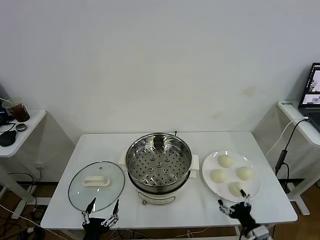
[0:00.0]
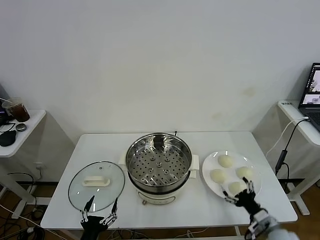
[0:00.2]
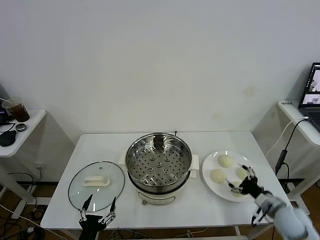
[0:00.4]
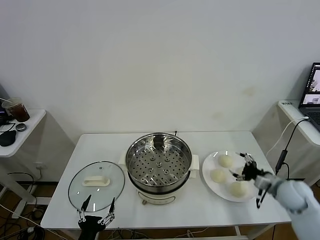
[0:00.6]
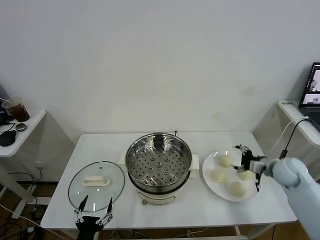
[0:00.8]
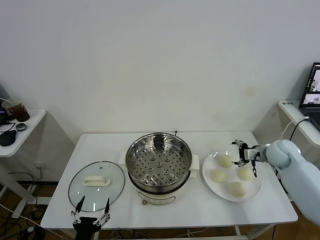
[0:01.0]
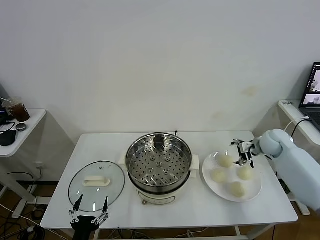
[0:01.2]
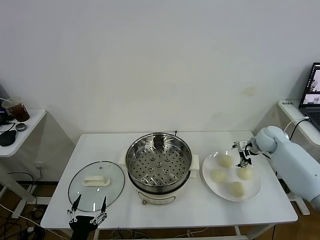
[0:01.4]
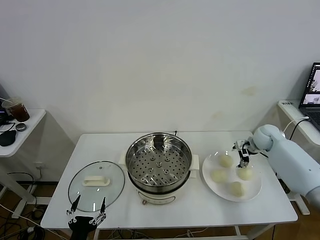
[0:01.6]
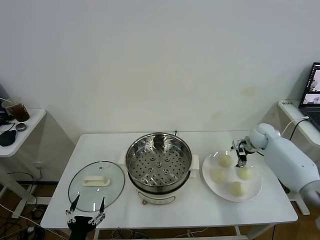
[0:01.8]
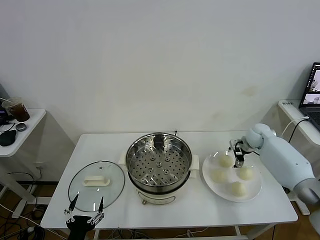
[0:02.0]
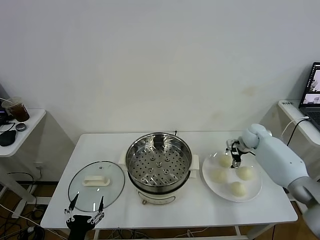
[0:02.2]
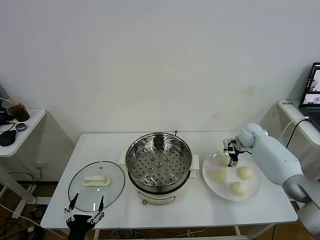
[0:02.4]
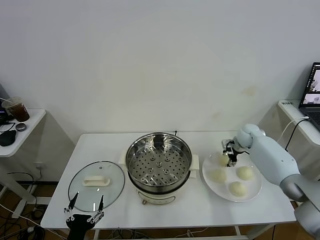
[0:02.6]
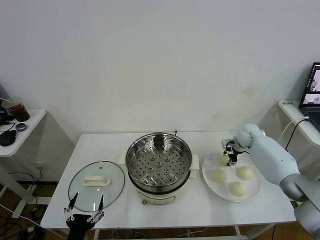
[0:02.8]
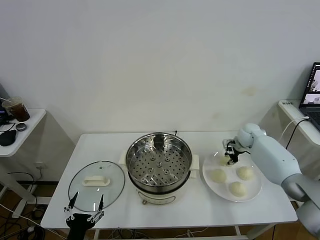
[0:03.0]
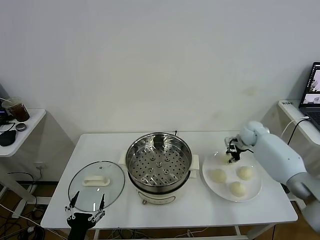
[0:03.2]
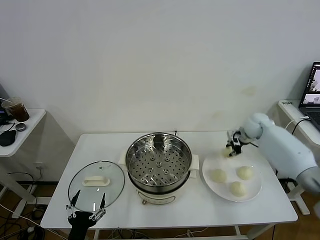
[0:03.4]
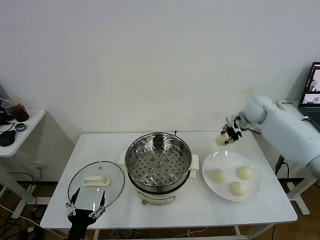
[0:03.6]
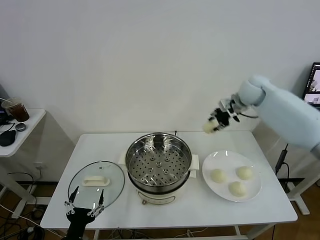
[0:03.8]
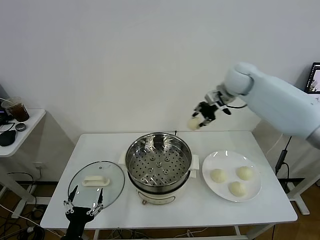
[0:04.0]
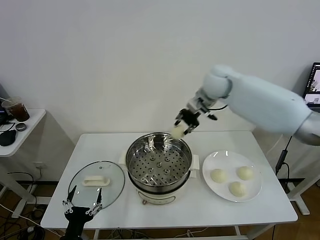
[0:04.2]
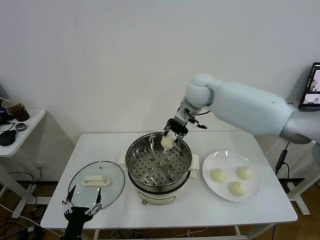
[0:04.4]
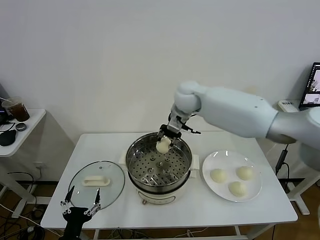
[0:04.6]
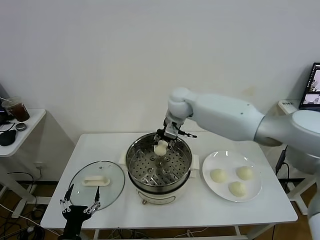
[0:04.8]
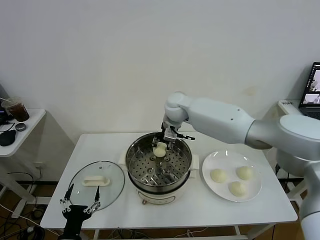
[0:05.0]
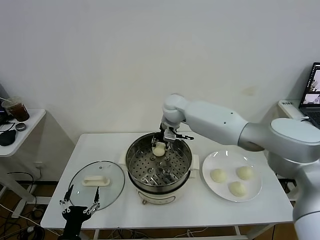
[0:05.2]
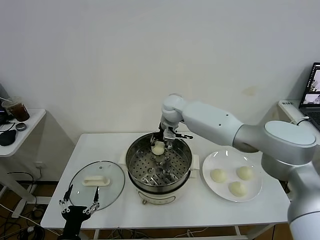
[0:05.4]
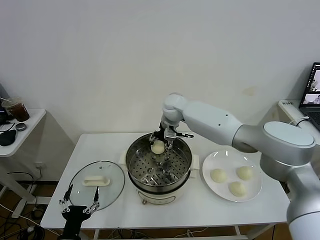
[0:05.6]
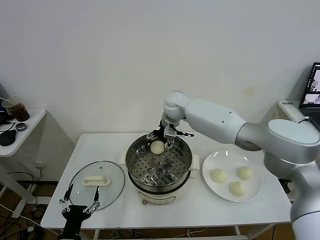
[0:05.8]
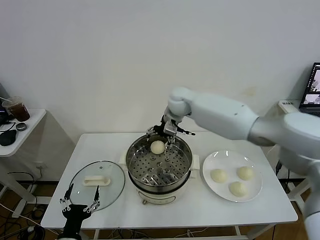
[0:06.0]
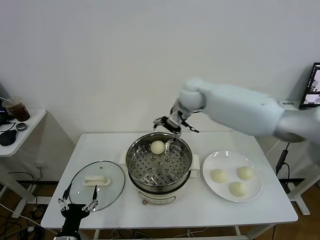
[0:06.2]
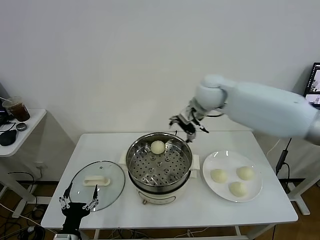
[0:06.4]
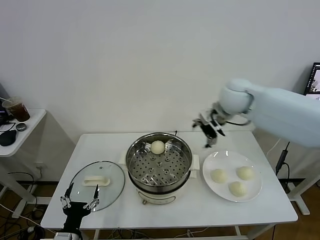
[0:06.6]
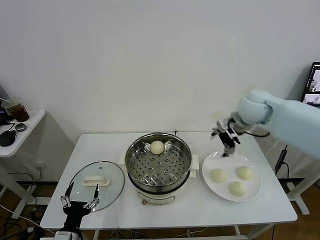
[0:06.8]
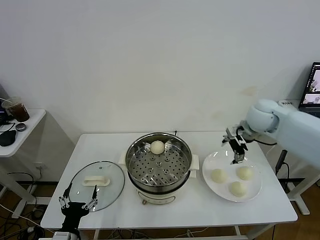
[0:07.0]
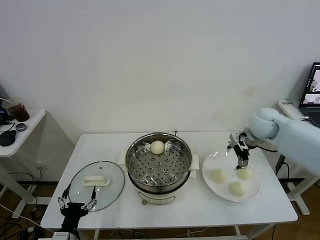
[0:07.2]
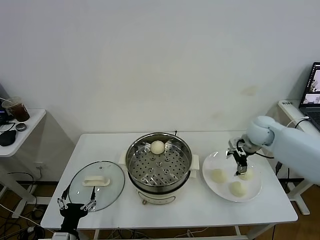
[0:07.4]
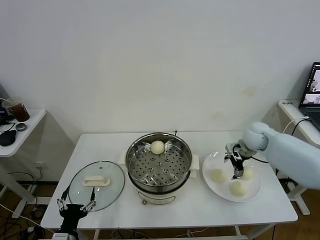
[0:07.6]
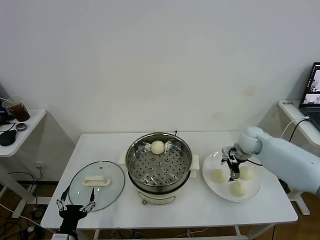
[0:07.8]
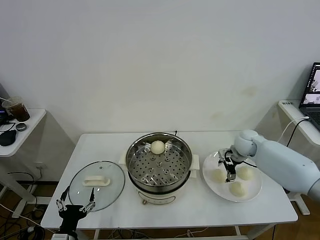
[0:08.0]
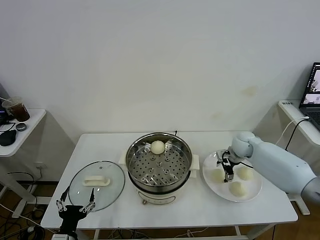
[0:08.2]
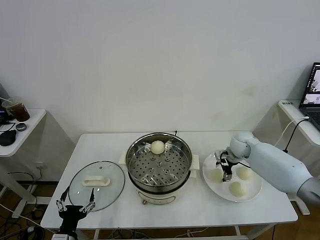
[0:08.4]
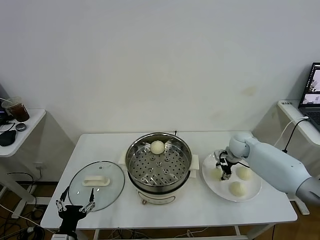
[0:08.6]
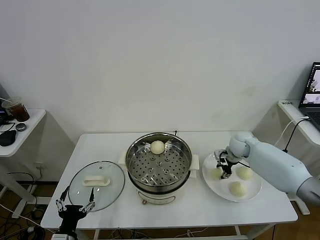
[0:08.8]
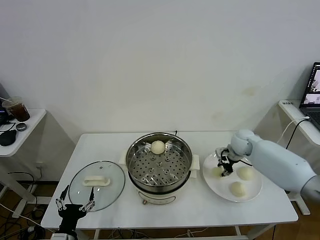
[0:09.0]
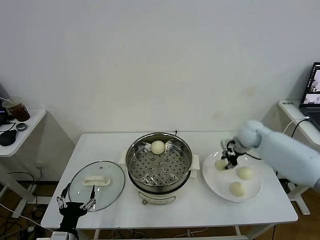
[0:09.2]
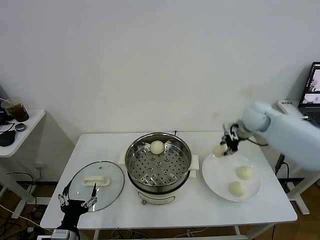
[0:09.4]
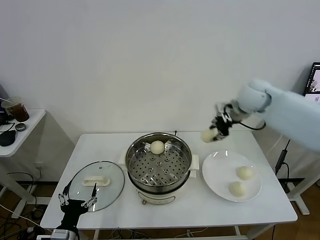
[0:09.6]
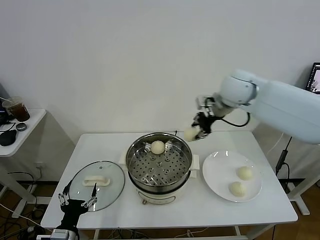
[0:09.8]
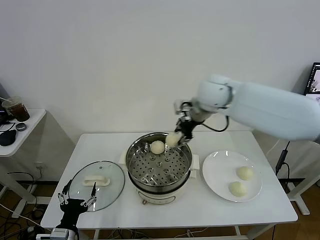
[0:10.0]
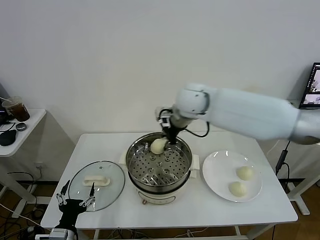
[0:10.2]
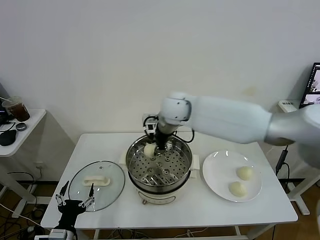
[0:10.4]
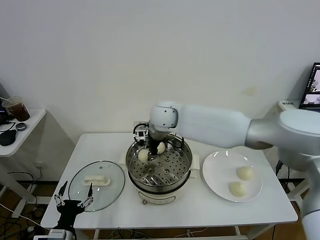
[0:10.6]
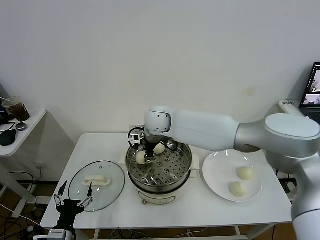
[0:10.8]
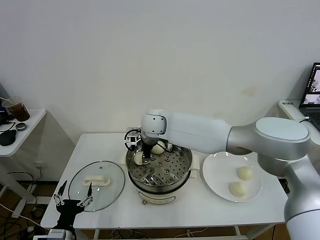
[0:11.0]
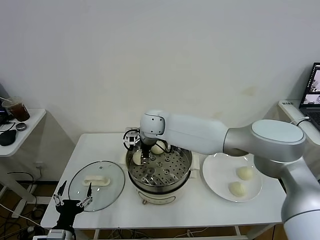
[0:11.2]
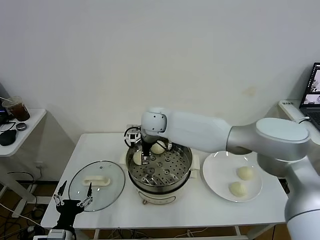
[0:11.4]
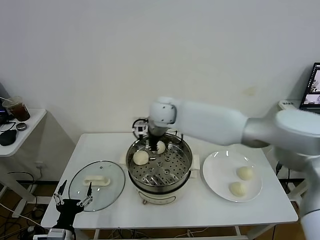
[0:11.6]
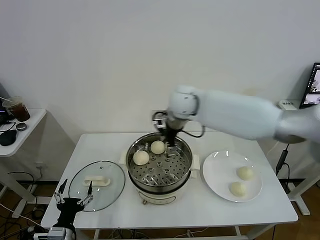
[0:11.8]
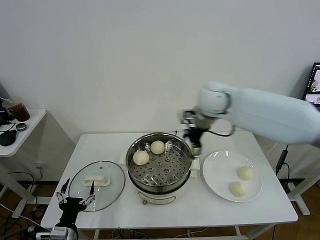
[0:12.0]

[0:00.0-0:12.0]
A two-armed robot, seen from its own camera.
Task of the whole recording: take steamed baozi put them in steamer.
Step, 0.0 to 2.8 s: Grasp the baozi in the plate with right gripper.
Step, 3.0 to 6.0 s: Place the baozi on the steamer with right gripper.
Step, 6.2 to 8.6 s: Grasp the baozi in the plate with right gripper.
Step, 8.8 to 11.4 s: Place the baozi on the steamer with right gripper.
1.6 to 3.0 s: The right gripper shifts by about 5 cm, and closes.
3.0 to 4.4 s: The right gripper heads to the left and upward, covering some 35 cm.
4.4 to 6.0 s: The right gripper opens up.
6.0 to 7.6 s: The right gripper moves to the right and downward, roughly 30 cm.
7.6 to 9.0 s: The right gripper moves some 5 cm, and closes up.
9.0 to 10.4 s: The right gripper is displaced to the left and upward by about 35 cm.
10.4 to 12.0 s: The right gripper travels to the right by approximately 10 cm, and opens its fingers.

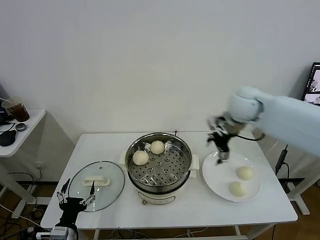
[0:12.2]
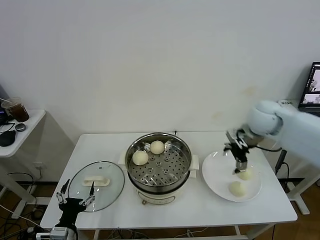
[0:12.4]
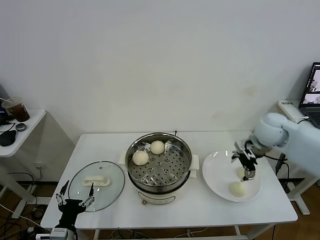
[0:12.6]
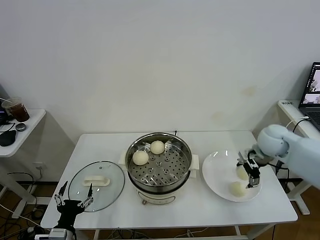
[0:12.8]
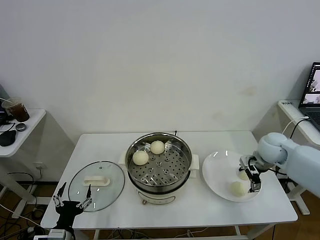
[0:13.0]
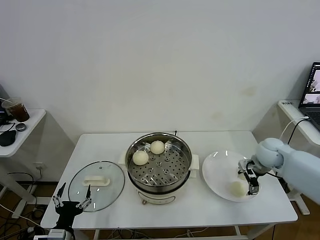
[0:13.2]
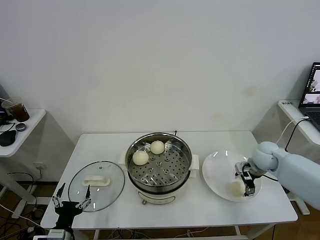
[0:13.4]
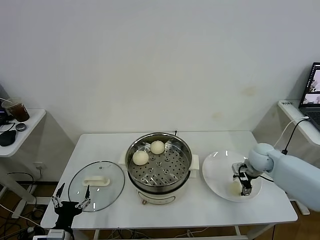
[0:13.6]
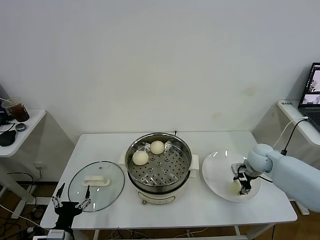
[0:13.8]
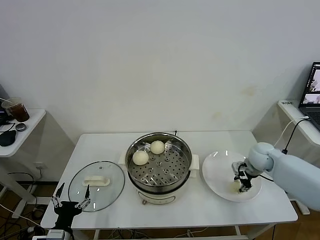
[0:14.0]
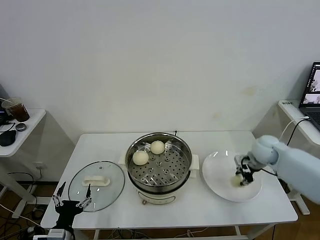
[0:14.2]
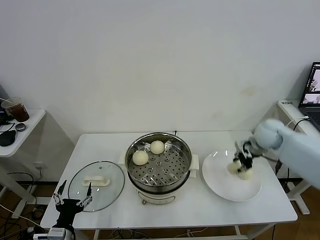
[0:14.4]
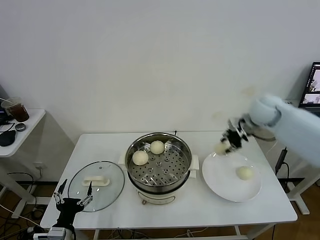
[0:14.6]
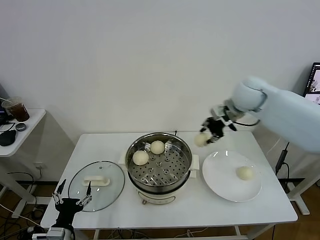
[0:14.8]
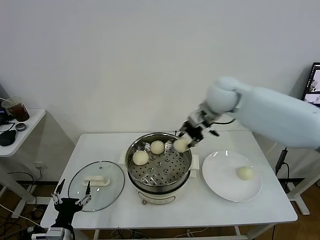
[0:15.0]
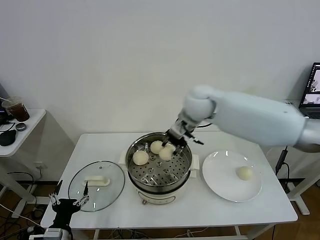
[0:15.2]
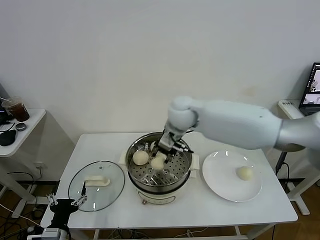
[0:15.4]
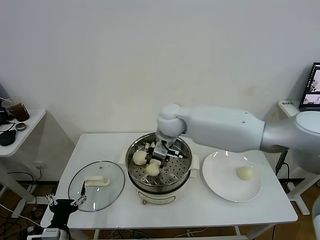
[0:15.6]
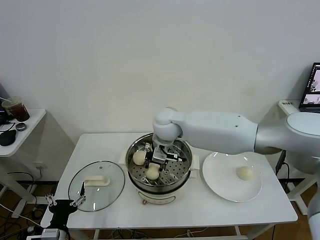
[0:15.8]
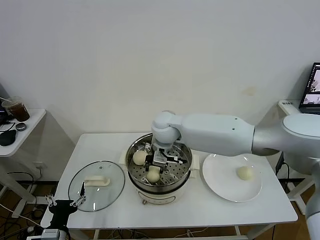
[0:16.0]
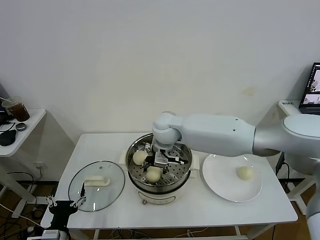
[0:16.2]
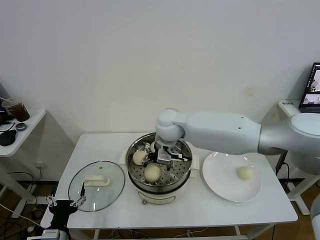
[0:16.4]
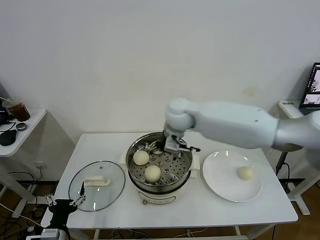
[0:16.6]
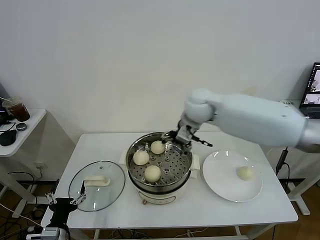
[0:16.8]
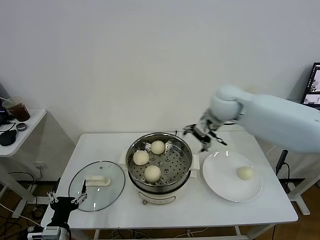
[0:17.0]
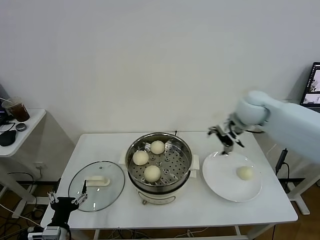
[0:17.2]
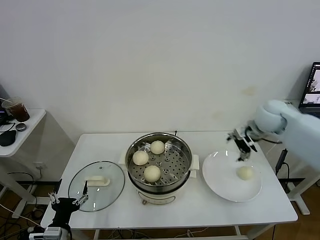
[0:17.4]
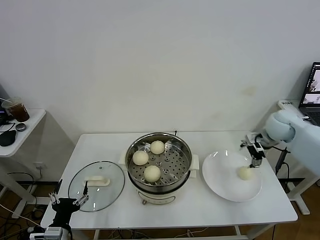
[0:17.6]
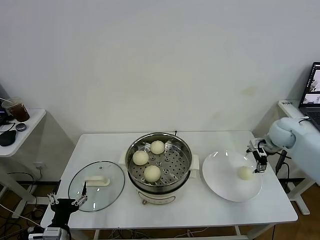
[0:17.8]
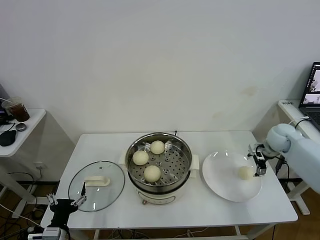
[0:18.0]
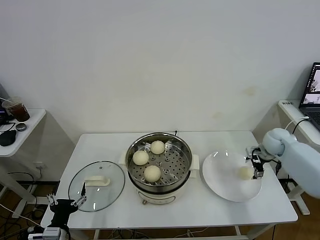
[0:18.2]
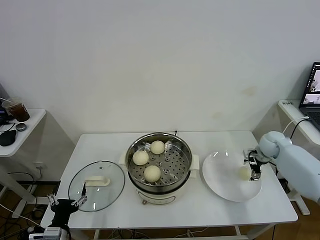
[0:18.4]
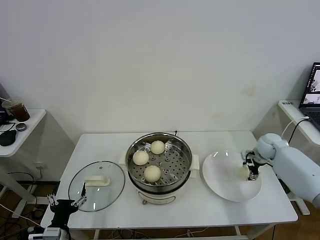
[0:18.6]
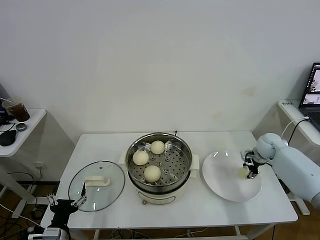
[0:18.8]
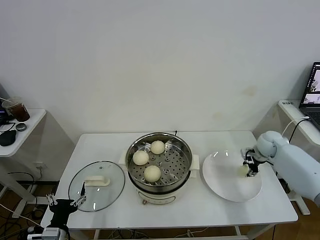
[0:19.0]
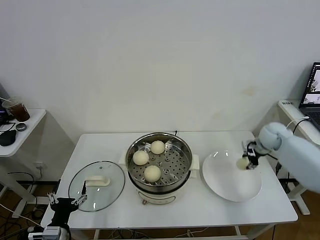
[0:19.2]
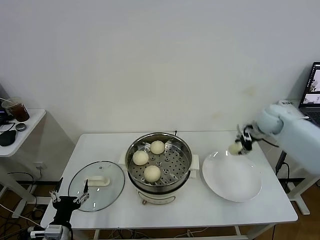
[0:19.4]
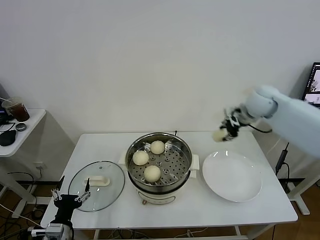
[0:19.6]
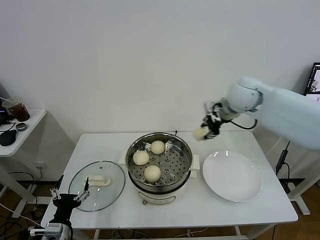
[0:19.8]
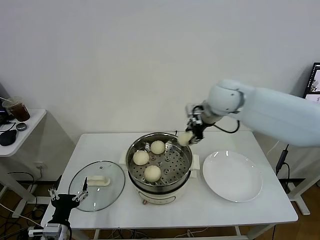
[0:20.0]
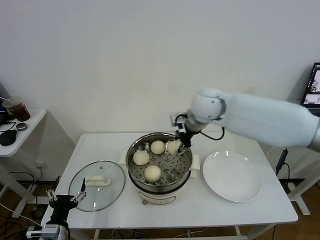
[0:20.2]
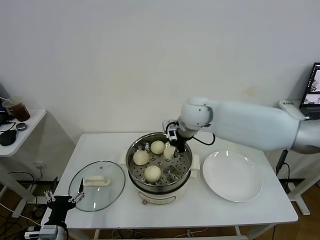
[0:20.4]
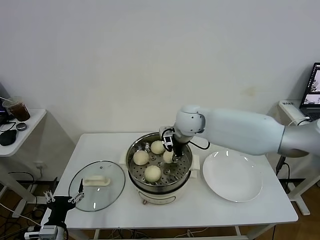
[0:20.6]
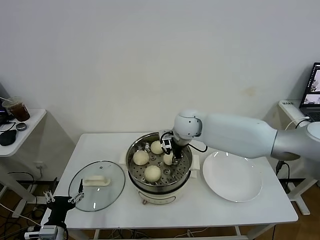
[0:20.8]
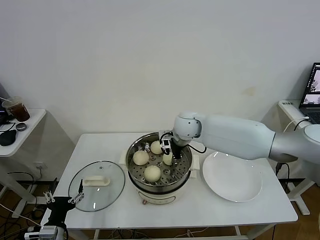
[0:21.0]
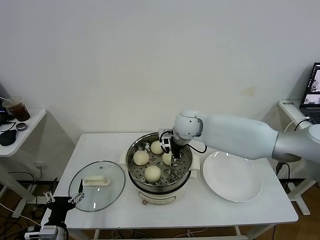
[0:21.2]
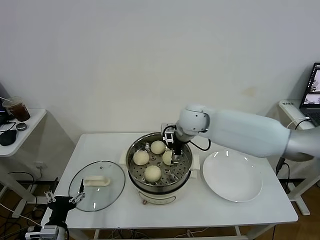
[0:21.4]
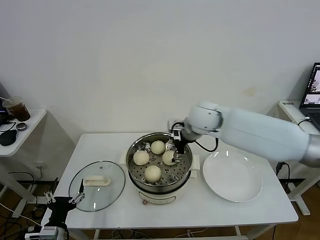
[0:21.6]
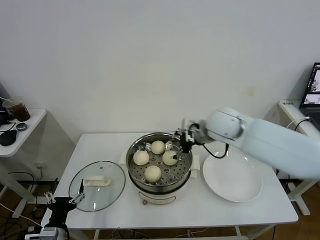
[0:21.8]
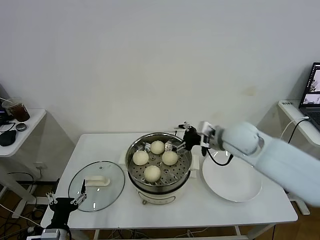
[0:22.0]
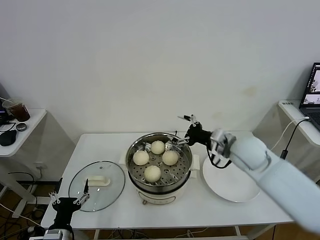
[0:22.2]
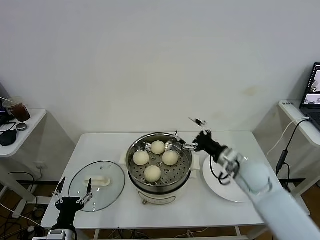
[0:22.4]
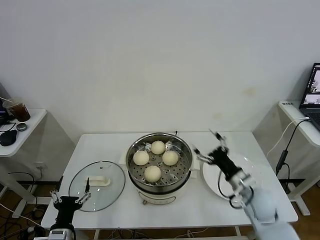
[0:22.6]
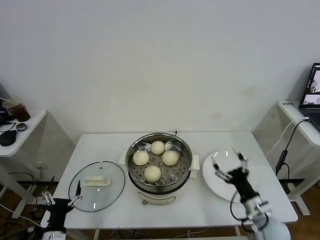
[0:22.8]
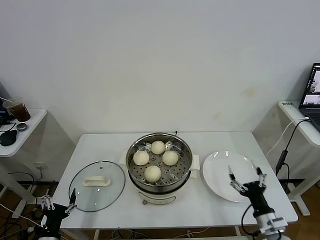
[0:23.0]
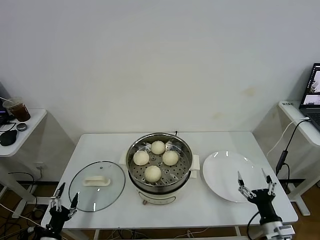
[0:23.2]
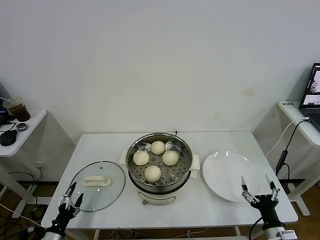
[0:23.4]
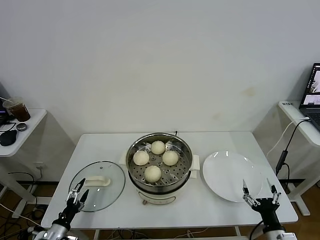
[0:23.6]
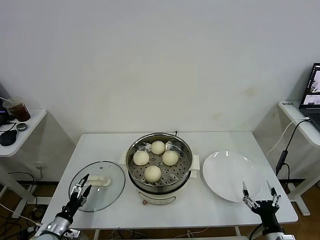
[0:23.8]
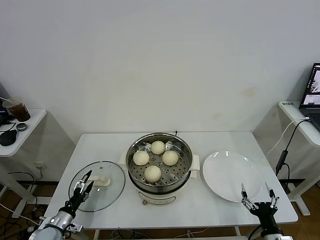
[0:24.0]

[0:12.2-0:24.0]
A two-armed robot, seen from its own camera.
Task of the whole recording: take steamed baozi put them in steamer.
Step, 12.2 to 13.8 s: Grasp the baozi in the plate with right gripper.
Step, 14.0 to 16.4 s: Place the baozi on the steamer with right gripper.
Step, 16.6 to 18.8 s: Grasp the baozi in the plate with right gripper.
Step, 19.0 to 21.4 s: Place the baozi on the steamer with right gripper.
12.2 to 13.6 s: The right gripper moves downward and to the right, some 25 cm.
13.6 to 15.2 s: The right gripper shifts about 35 cm to the left and upward, and closes up.
15.2 to 16.6 s: The right gripper shifts roughly 5 cm to the left, and opens up.
16.6 to 18.2 s: The right gripper is displaced to the right by roughly 40 cm.
18.2 to 19.6 s: The right gripper is displaced upward and to the left by some 20 cm, and closes up.
19.6 to 21.0 s: The right gripper goes some 25 cm to the left.
21.0 to 22.6 s: The right gripper is displaced to the right, backward and downward by approximately 30 cm, and opens.
22.6 to 24.0 s: The left gripper travels to the left, downward and forward by approximately 15 cm, while the right gripper heads backward and downward, covering roughly 20 cm.
